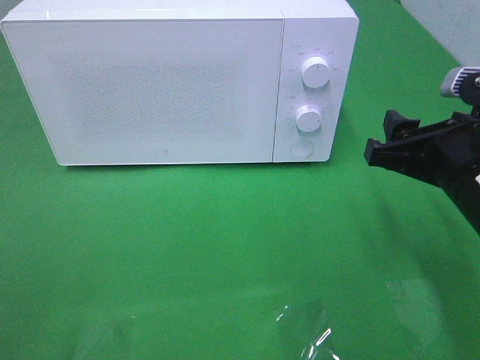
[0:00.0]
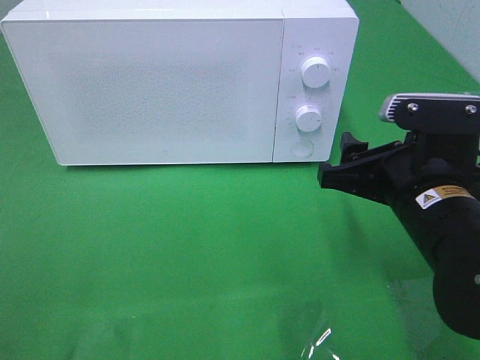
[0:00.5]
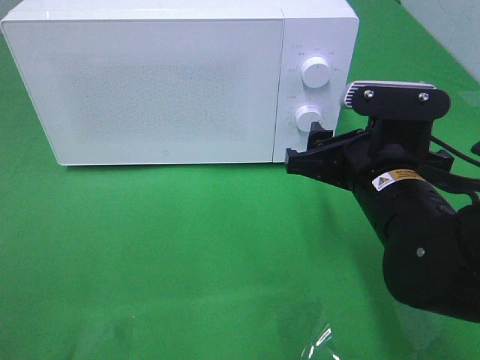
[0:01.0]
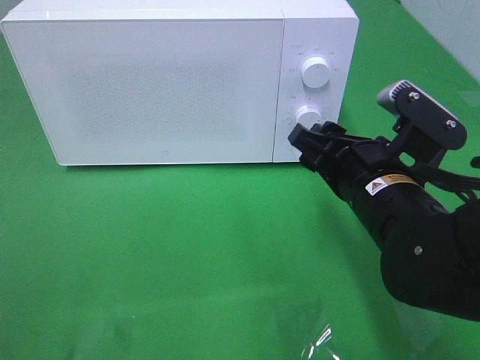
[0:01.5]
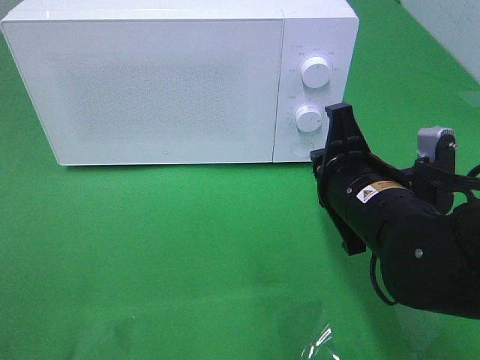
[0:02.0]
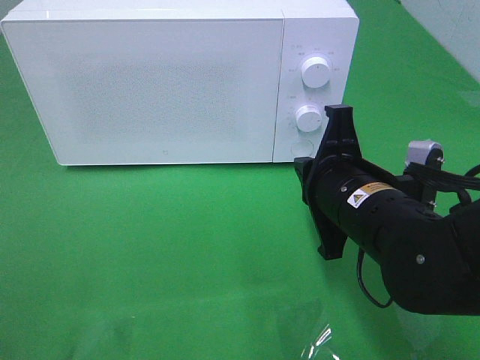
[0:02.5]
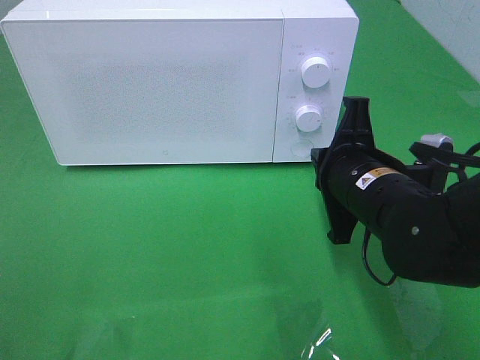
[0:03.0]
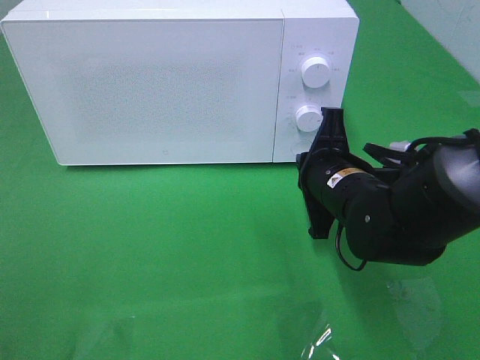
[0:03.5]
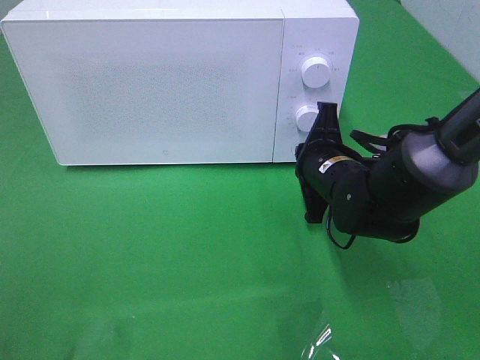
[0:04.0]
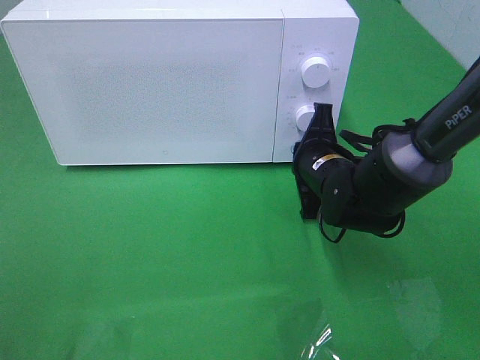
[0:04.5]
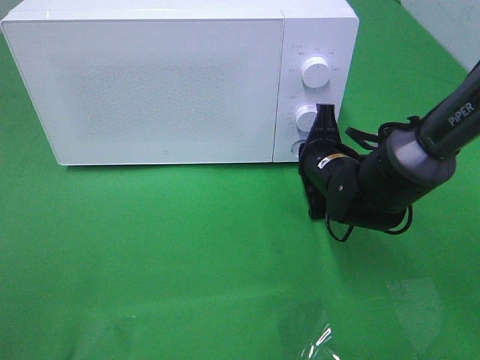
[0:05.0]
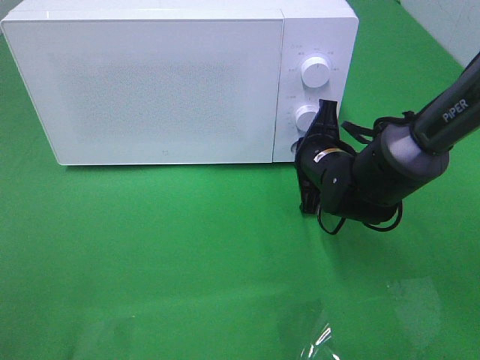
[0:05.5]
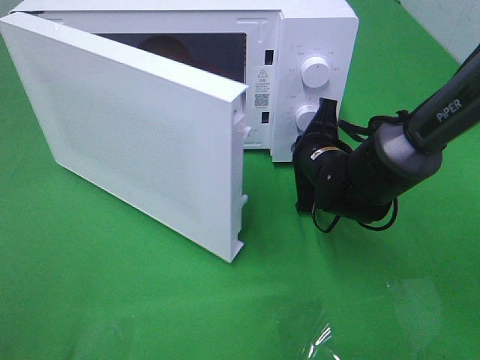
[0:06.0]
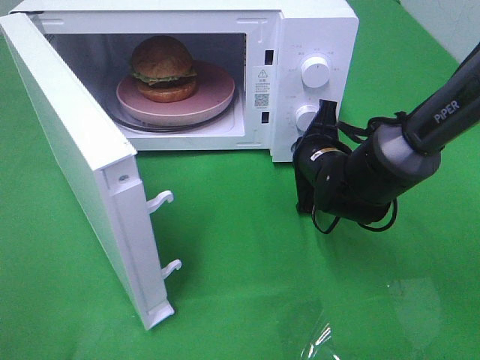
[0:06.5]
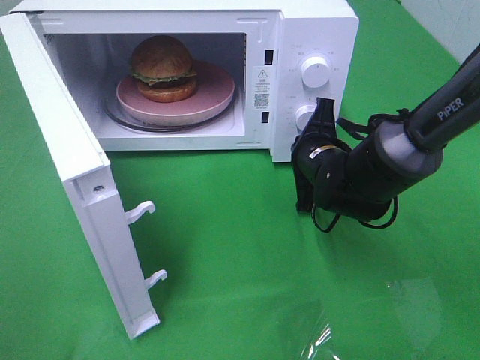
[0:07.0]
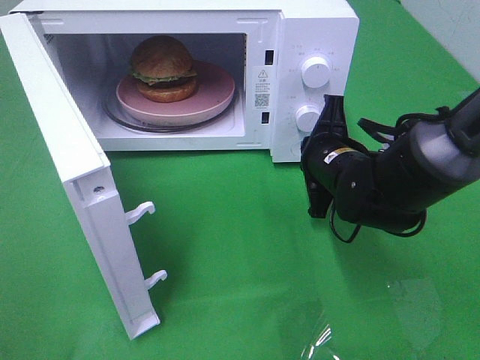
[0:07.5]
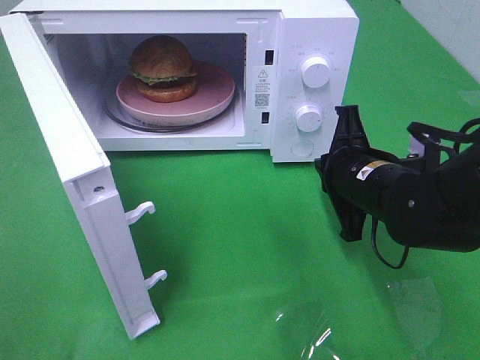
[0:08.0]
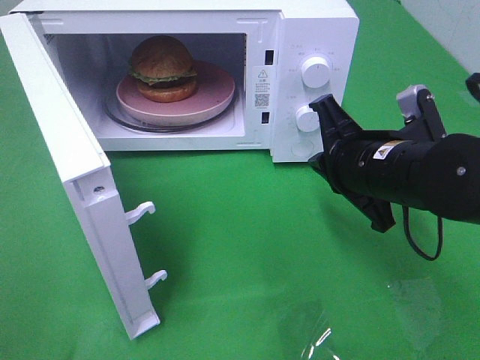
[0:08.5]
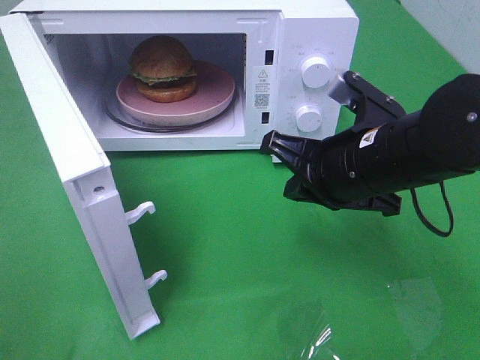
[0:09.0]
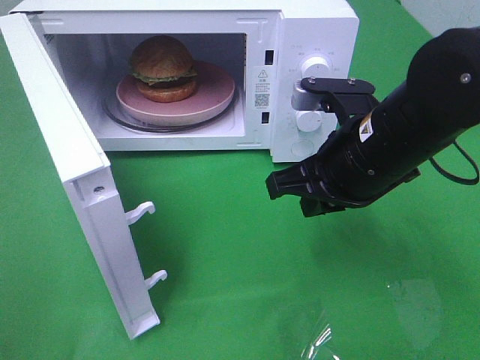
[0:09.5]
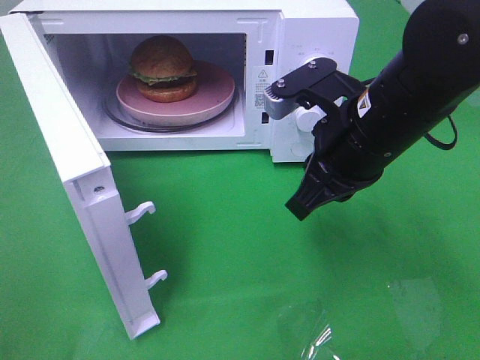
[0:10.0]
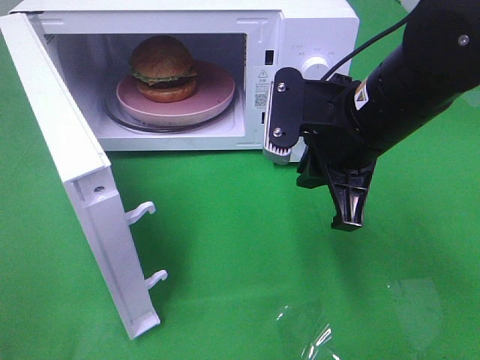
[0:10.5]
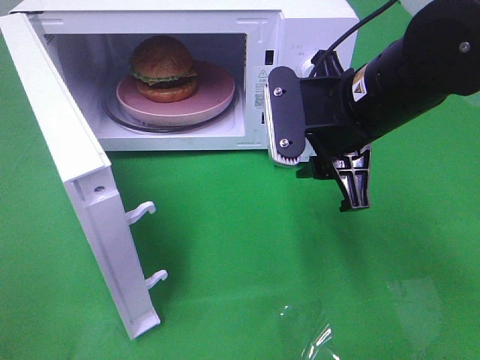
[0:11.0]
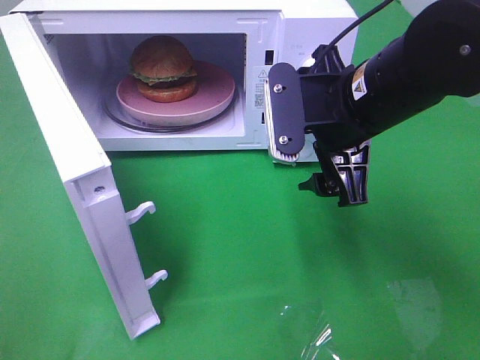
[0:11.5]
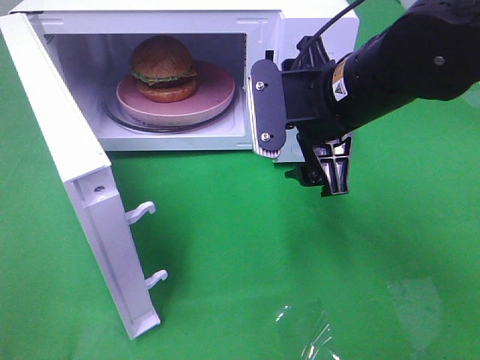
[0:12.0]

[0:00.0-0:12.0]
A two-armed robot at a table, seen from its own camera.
Task of the whole recording: Heat the burger.
Step, 0:00.0 to 0:07.5: Right hand: press the switch.
0:00.0 to 0:02.0: The right gripper shifts approximately 10 cm to the left, and closes its fingers.
0:02.0 to 0:04.0: The right gripper is displaced forward and downward by about 10 cm.
0:06.0 to 0:08.0: The right gripper shifts some 10 cm backward.
0:08.0 to 0:10.0: The right gripper goes some 10 cm upward.
0:10.0 to 0:12.0: The right gripper opens its fingers.

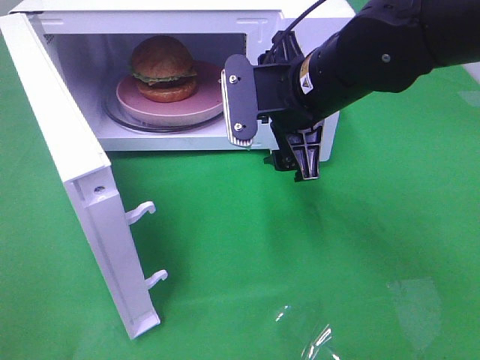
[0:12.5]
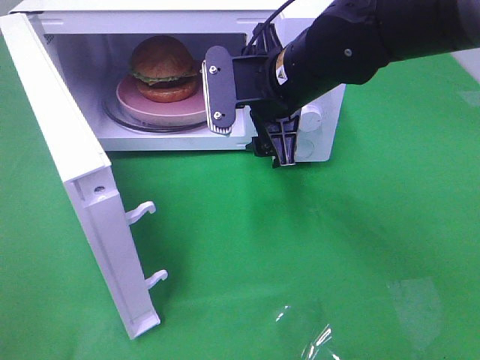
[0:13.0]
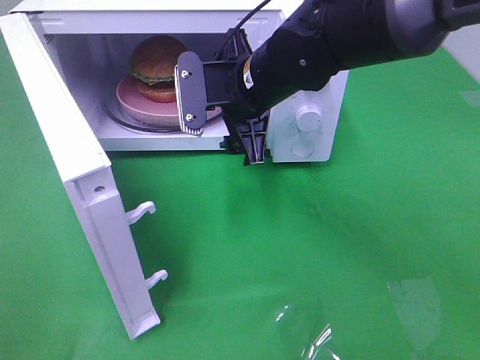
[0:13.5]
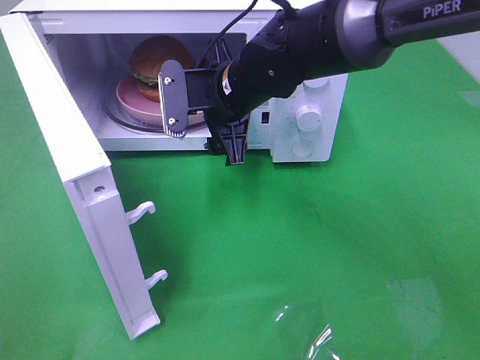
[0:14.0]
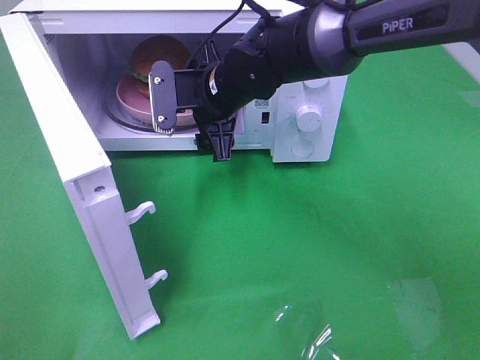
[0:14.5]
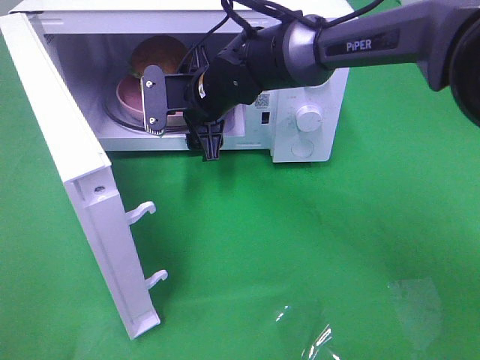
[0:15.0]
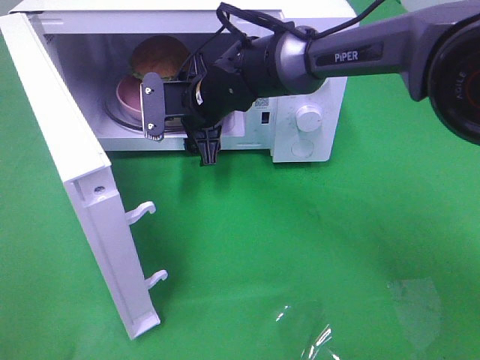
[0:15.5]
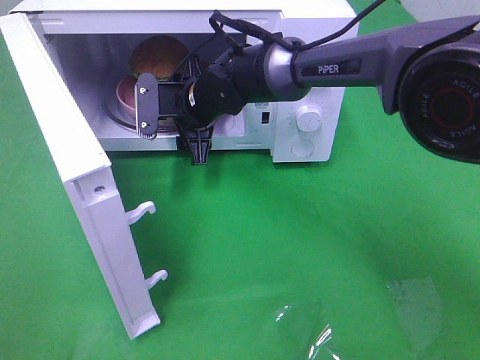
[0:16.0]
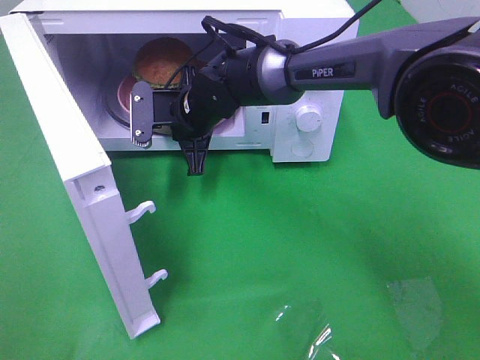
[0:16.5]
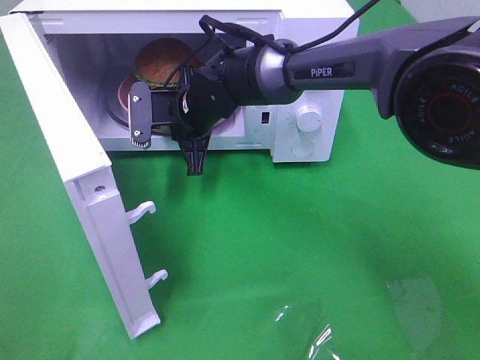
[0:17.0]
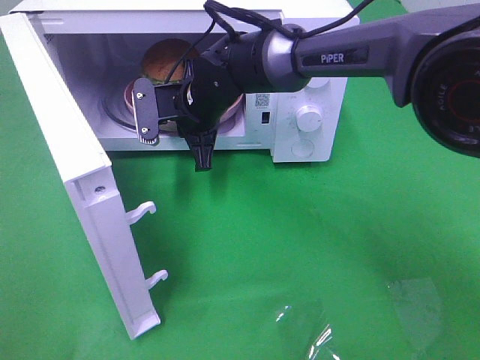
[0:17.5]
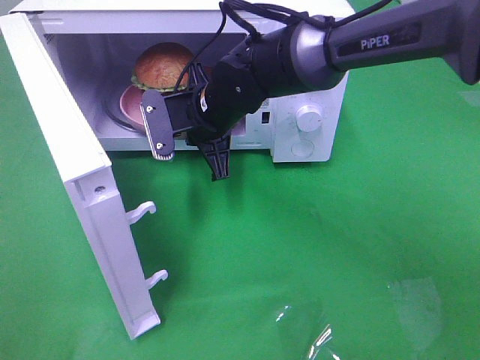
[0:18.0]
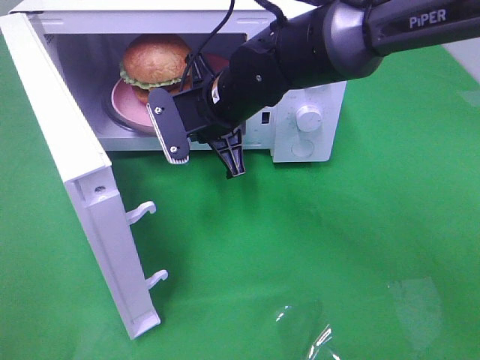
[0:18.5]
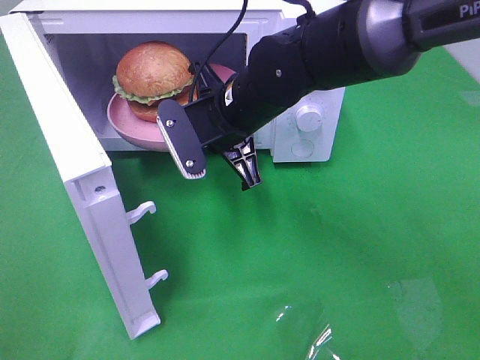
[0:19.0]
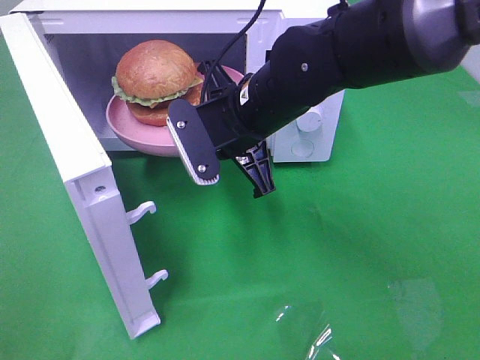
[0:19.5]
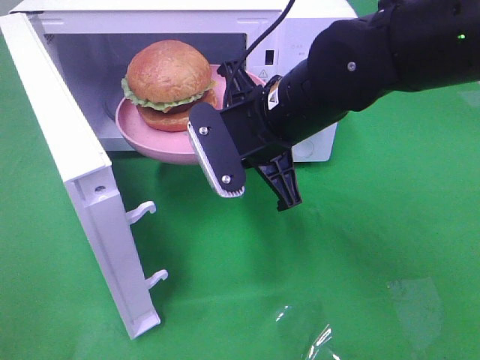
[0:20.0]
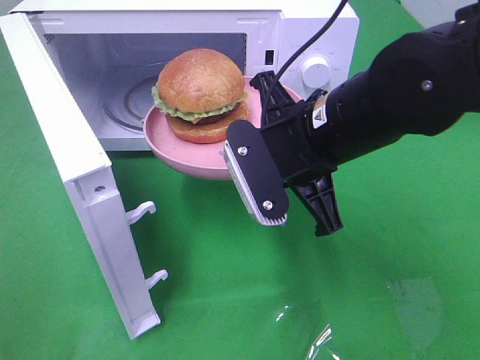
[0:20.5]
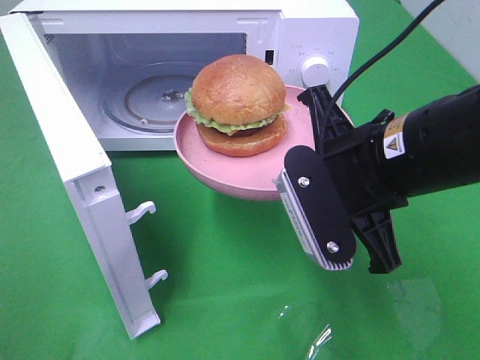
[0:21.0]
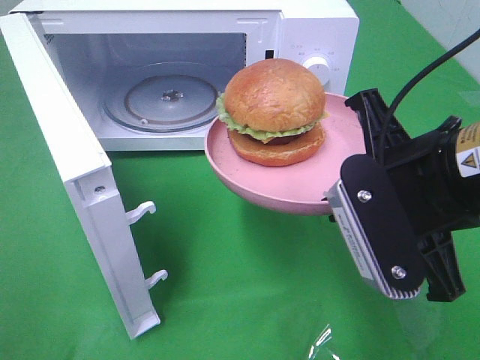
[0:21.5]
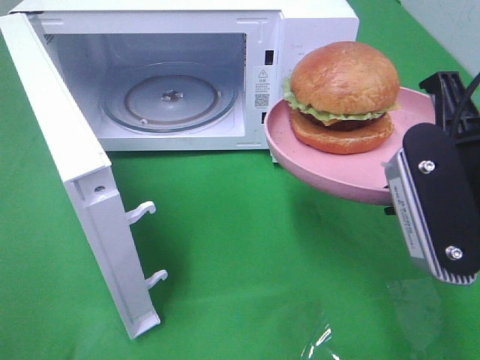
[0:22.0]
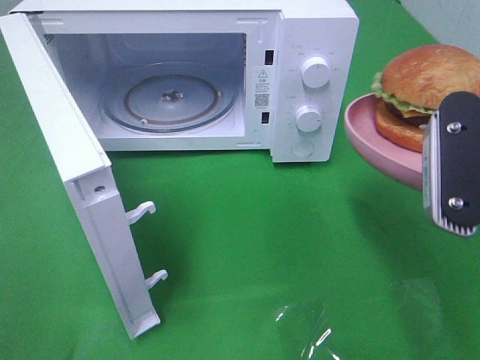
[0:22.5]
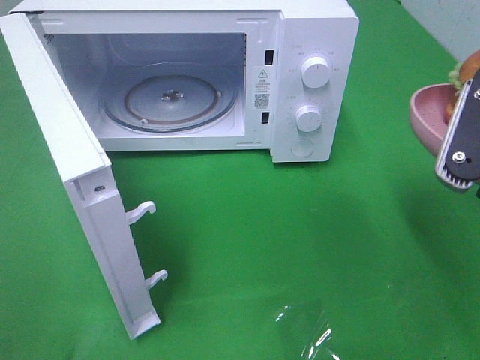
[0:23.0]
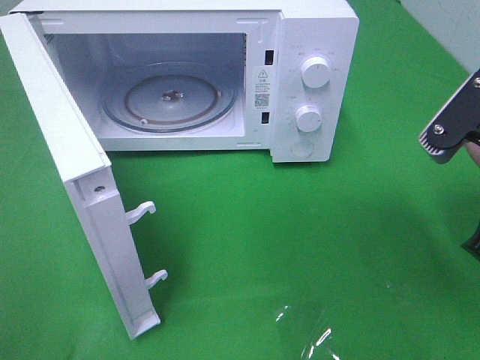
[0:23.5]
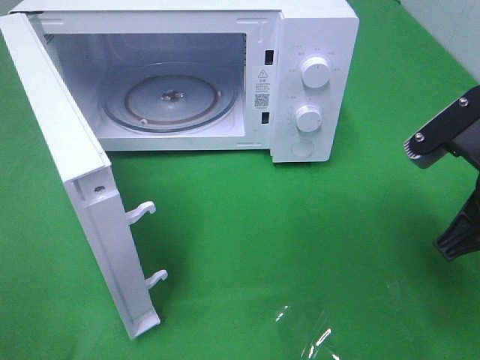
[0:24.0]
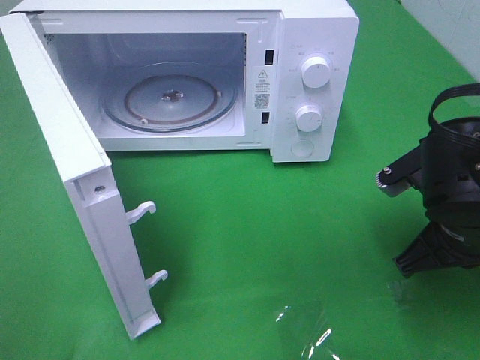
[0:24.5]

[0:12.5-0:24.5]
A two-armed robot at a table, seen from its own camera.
Task of the whole recording: Heat the burger.
Step, 0:12.5 to 0:16.5: Right hand: grab the plate with the hamburger.
0:12.5 to 0:14.5: The right gripper shifts about 15 cm to the left, forward and downward.
0:14.5 to 0:16.5: The right gripper changes place by roughly 5 cm, and closes up.
0:16.5 to 0:18.5: The right gripper travels backward by roughly 5 cm.
0:18.5 to 0:20.5: The right gripper moves backward and to the right, about 15 cm.
0:20.5 to 0:22.5: The right gripper moves to the right, backward and upward, some 15 cm.
0:22.5 to 0:24.5: The right gripper travels downward and forward by approximately 15 cm.

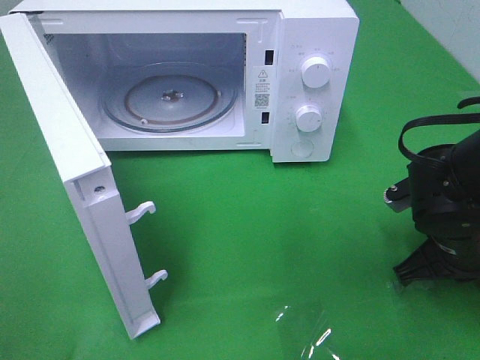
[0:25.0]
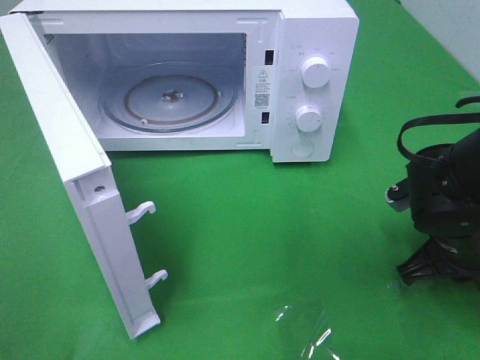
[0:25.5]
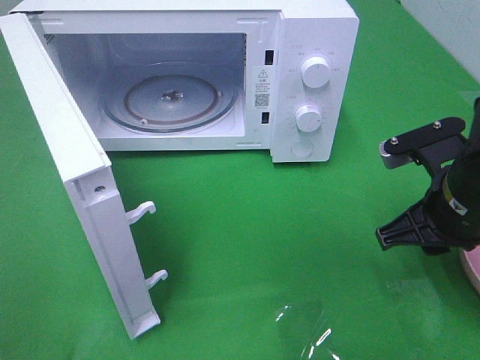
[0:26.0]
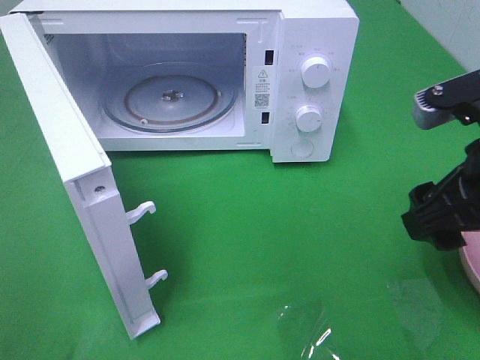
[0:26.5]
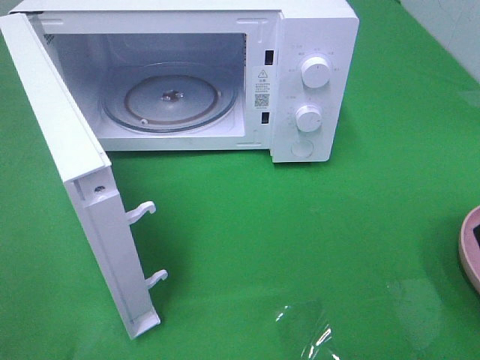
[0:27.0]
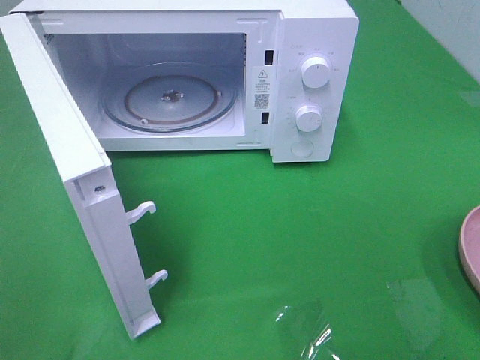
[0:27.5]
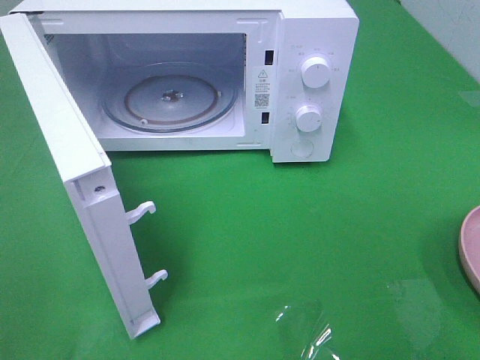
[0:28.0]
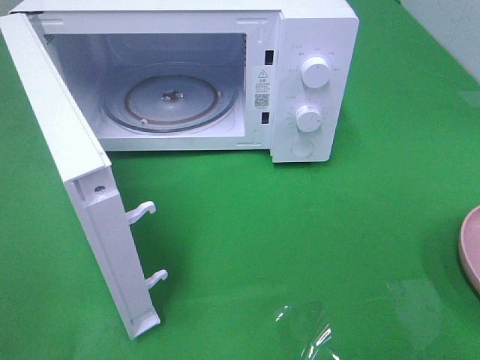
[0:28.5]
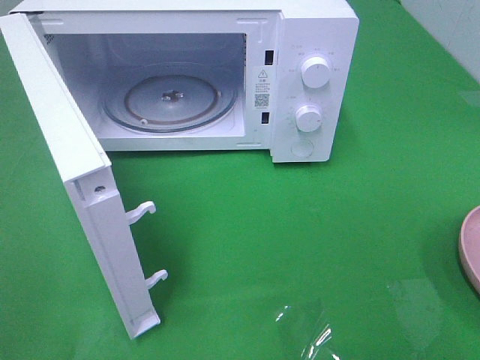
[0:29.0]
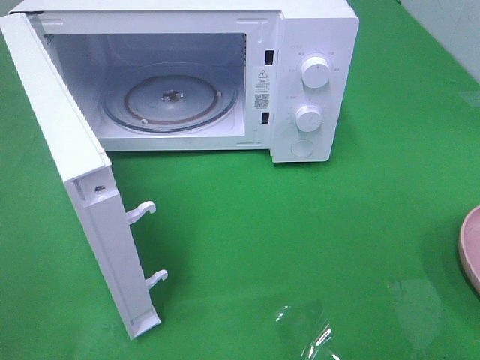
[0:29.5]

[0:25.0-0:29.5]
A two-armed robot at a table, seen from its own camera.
Task of the whole recording: Heat the burger.
0:25.0 to 0:27.0: The right gripper goes roughly 20 cm upward and backward, and opens up.
